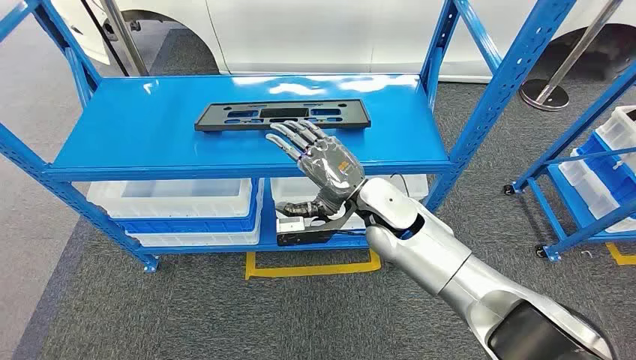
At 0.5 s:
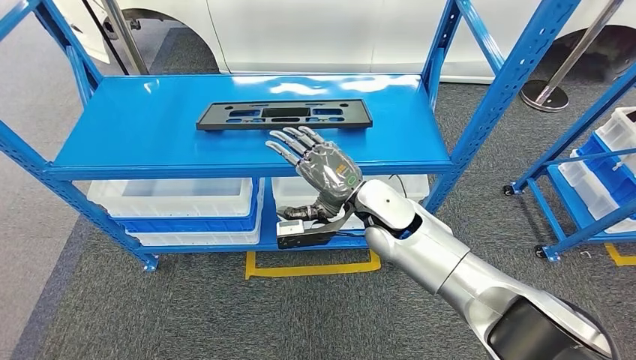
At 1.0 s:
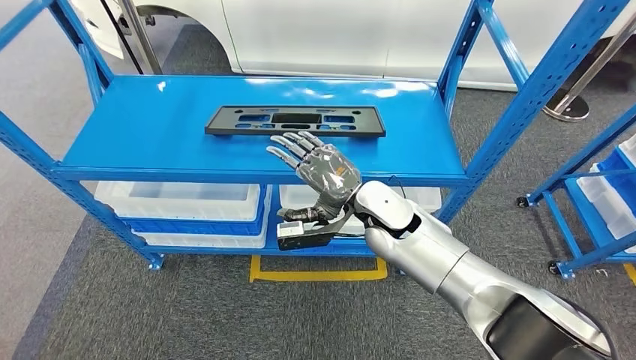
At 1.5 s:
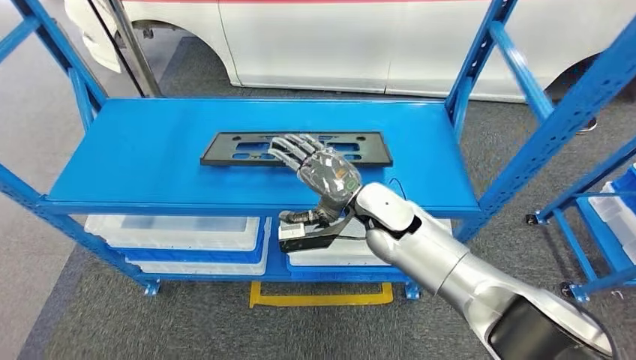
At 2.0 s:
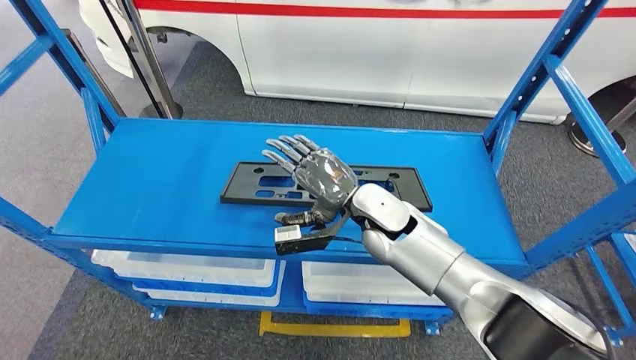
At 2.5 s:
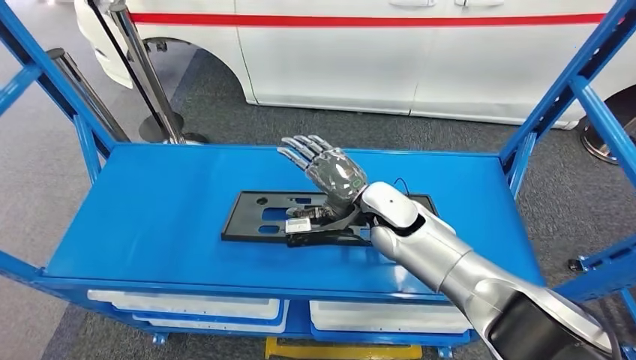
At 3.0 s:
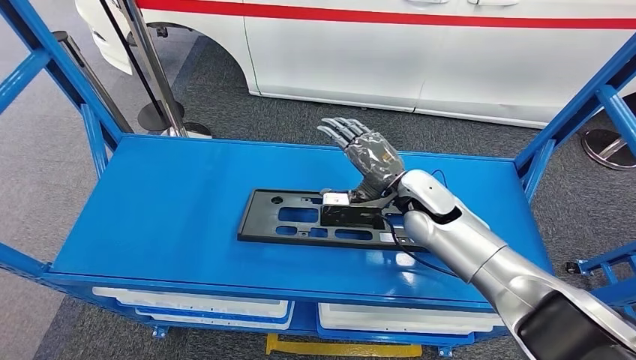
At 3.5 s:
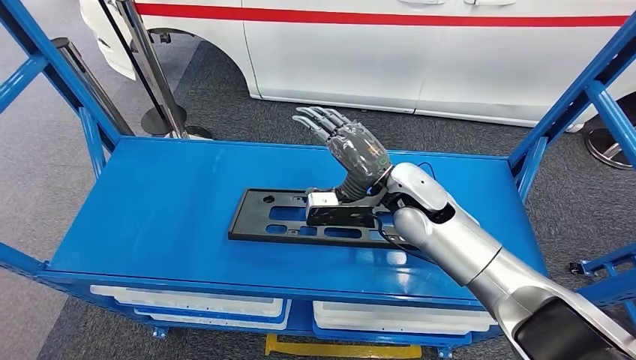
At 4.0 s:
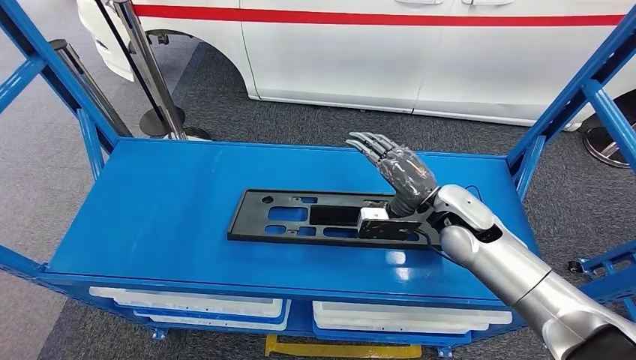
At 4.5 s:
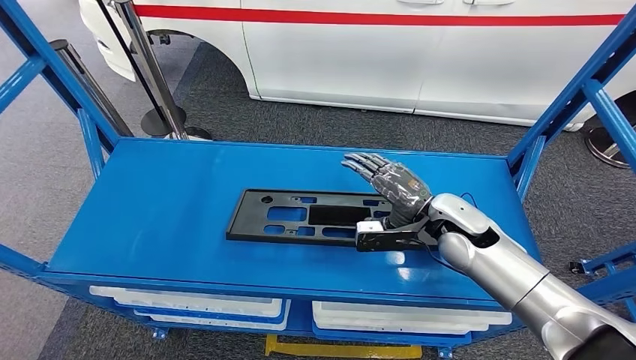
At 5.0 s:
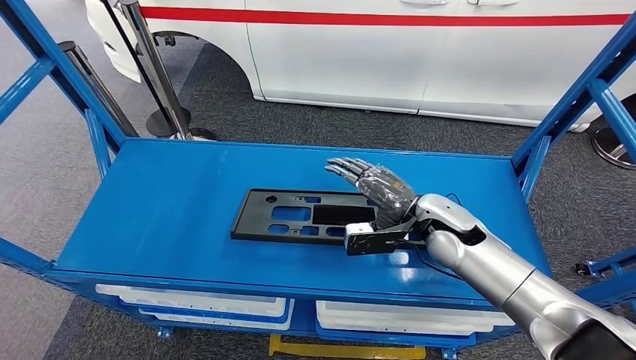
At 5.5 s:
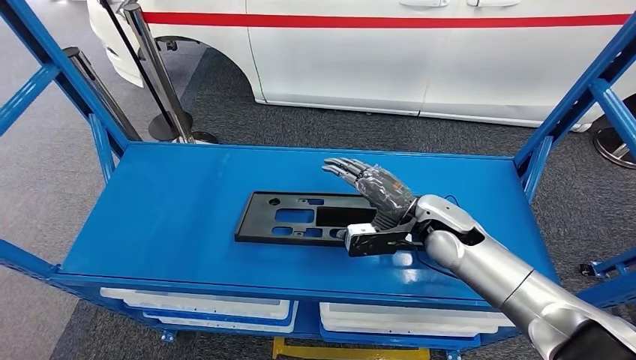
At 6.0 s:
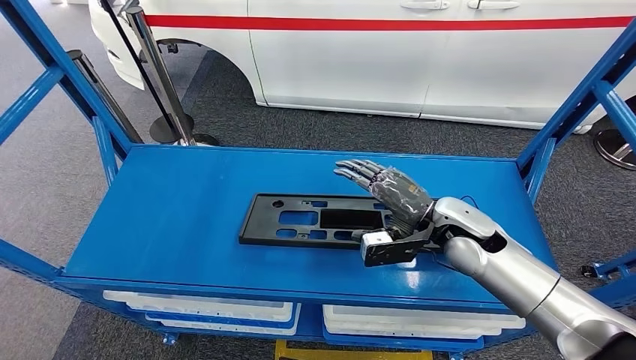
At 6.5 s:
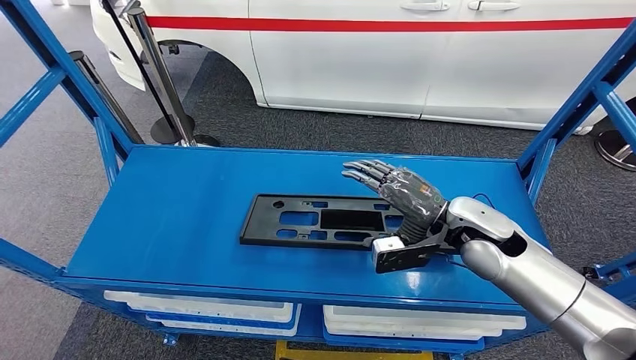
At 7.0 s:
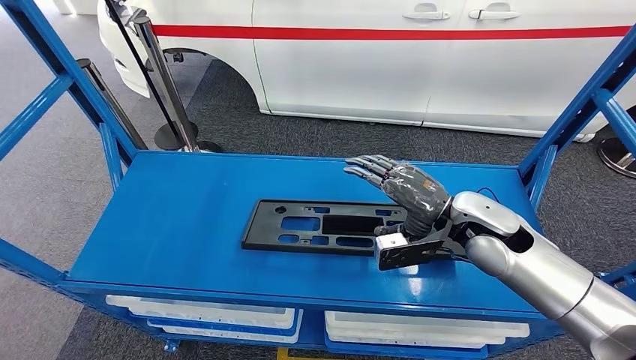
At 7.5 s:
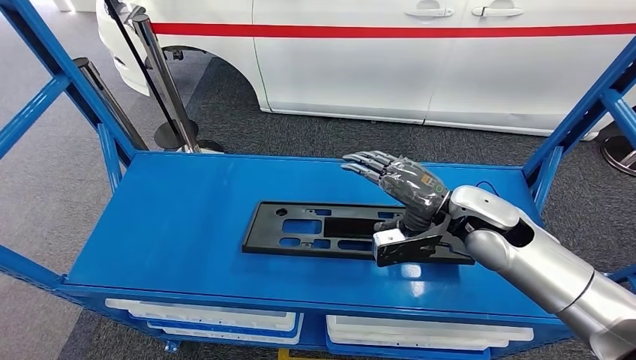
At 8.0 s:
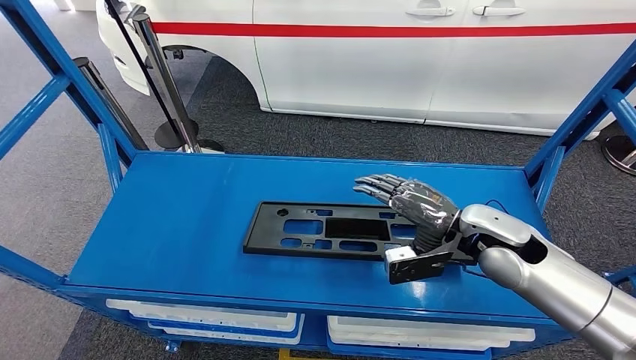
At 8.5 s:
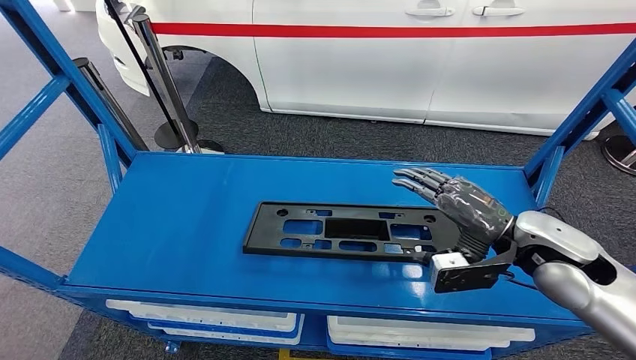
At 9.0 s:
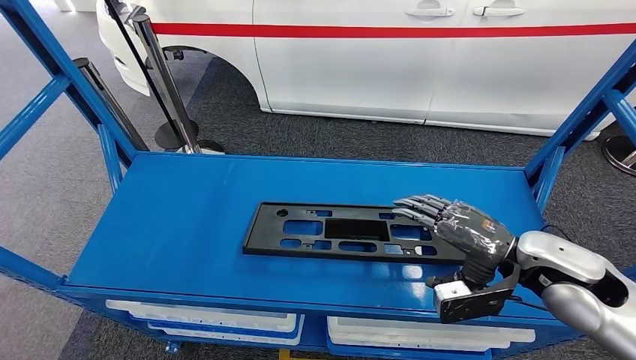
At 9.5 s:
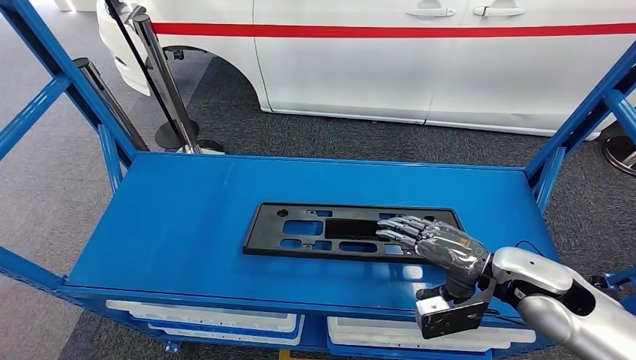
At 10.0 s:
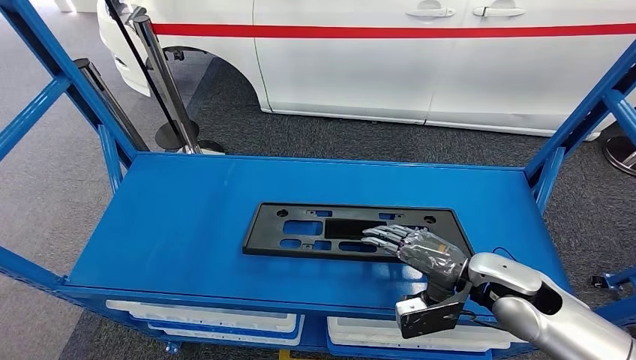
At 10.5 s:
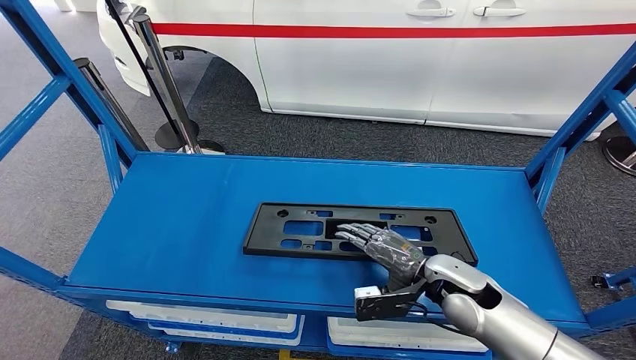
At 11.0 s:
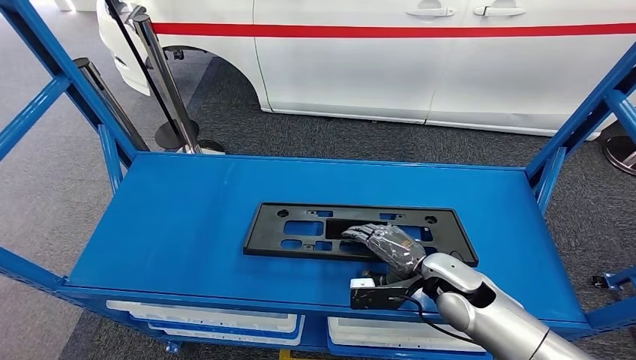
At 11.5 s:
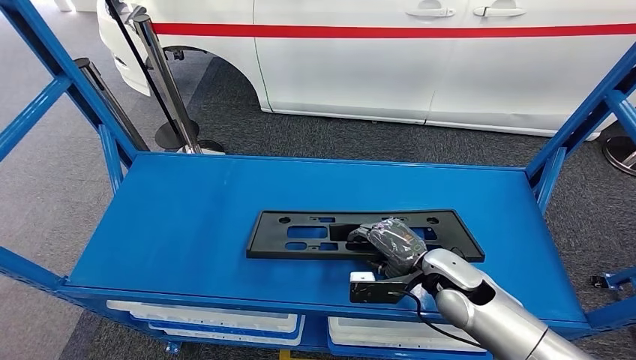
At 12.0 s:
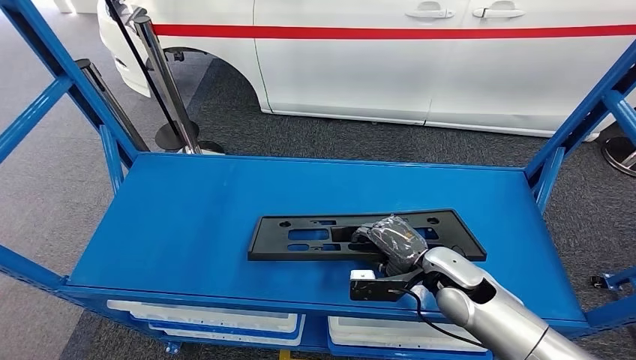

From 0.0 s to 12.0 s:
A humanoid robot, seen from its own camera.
Step, from 0.0 s to 8.5 s: Pick up the large material from the shelf.
From 8.0 s to 10.0 s: The right hand is displaced backward and downward by some 10 cm.
From 10.0 s to 12.0 s: The right hand goes some 5 cm downward.

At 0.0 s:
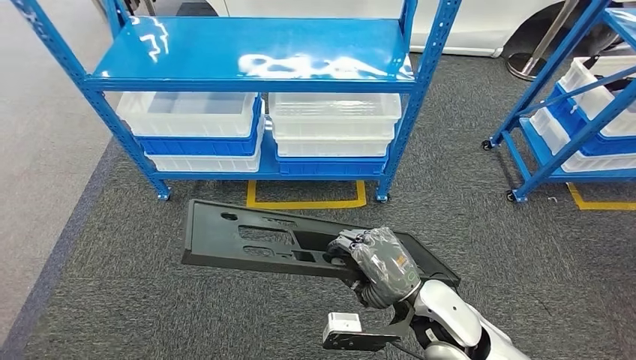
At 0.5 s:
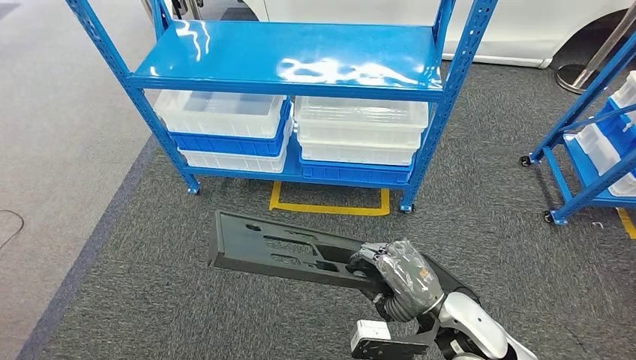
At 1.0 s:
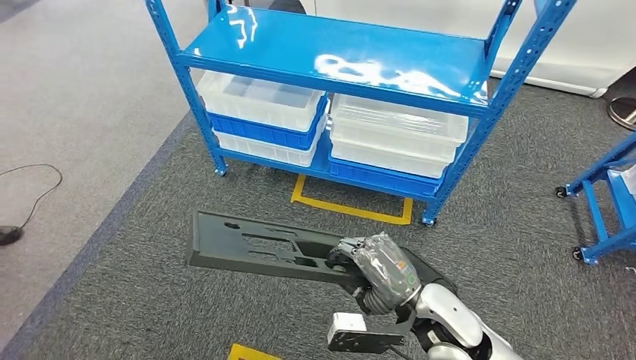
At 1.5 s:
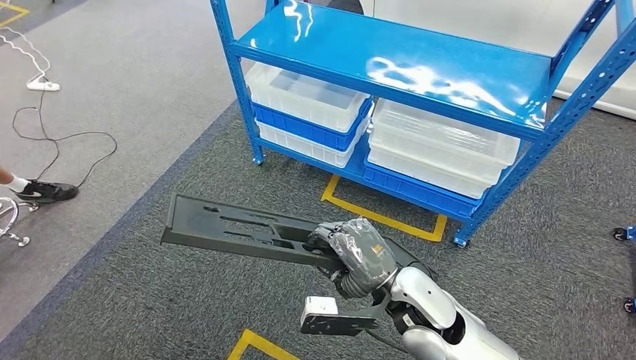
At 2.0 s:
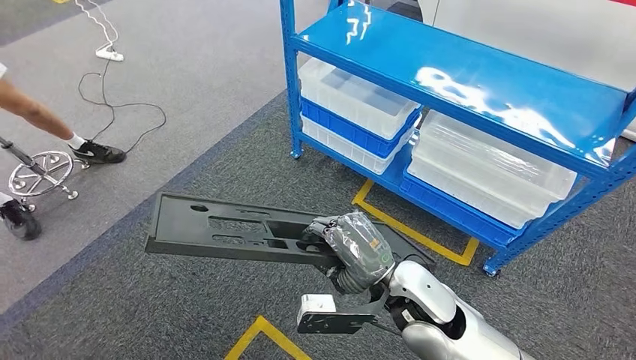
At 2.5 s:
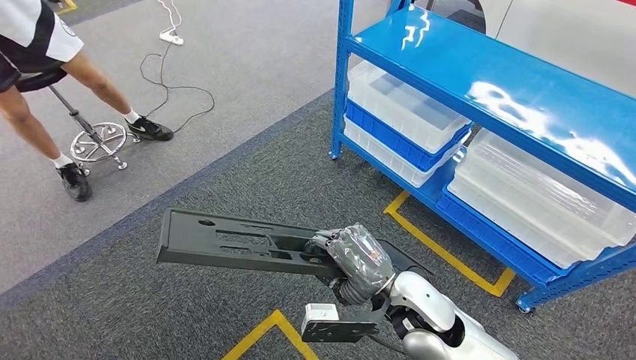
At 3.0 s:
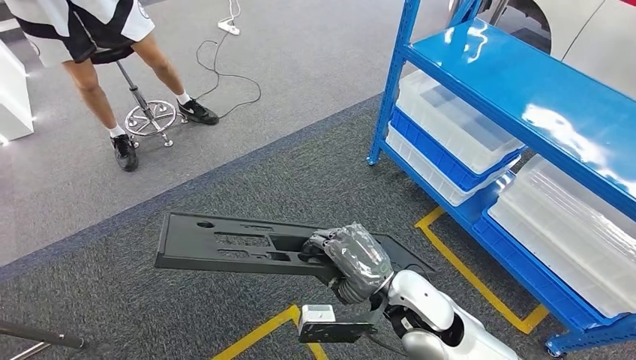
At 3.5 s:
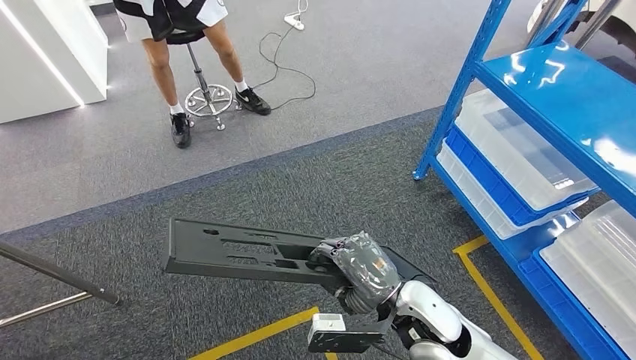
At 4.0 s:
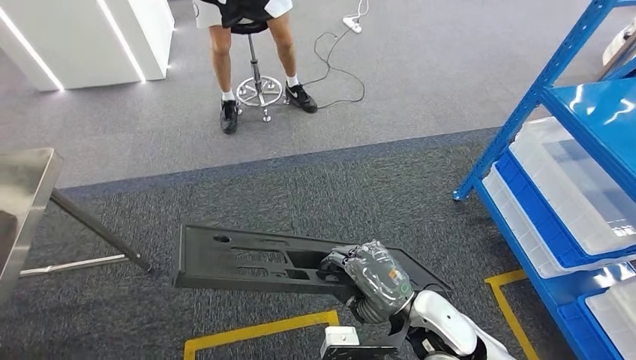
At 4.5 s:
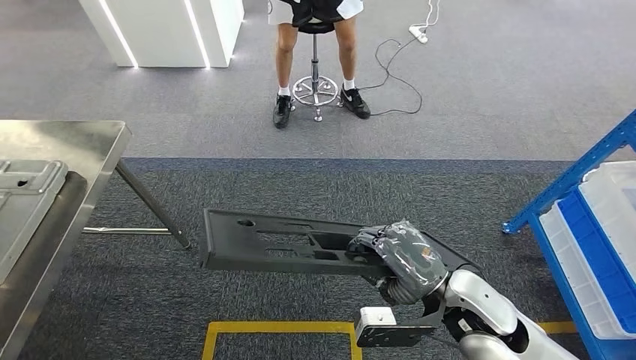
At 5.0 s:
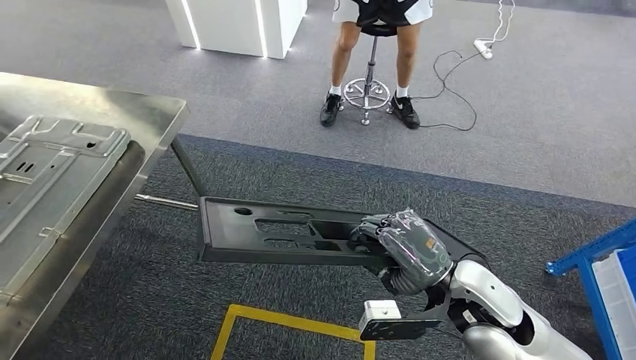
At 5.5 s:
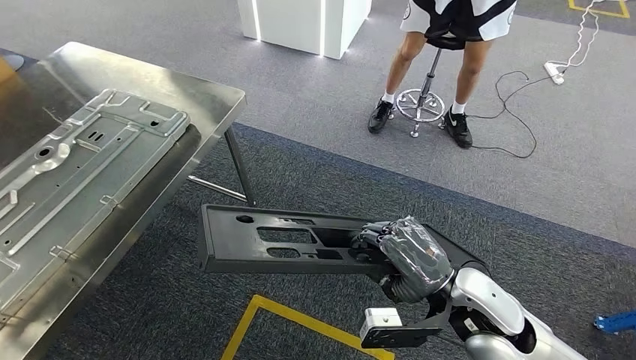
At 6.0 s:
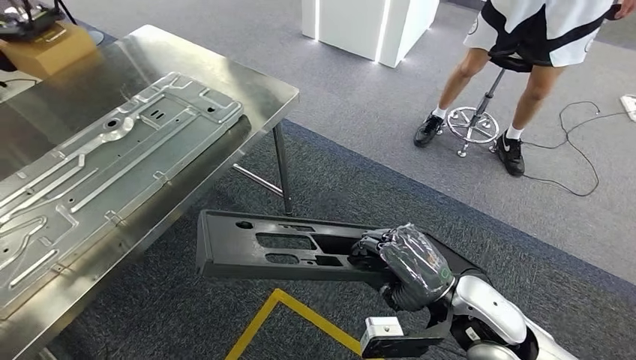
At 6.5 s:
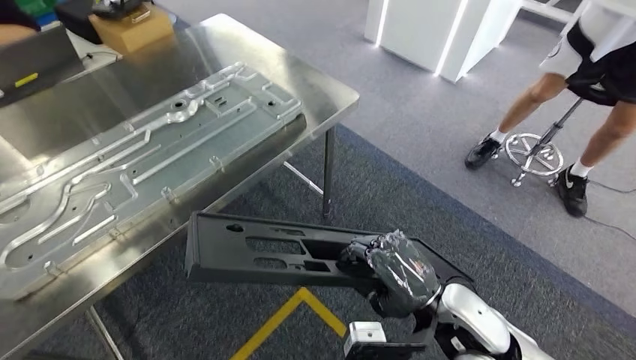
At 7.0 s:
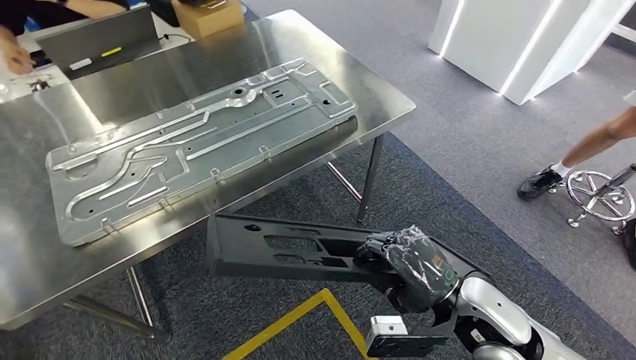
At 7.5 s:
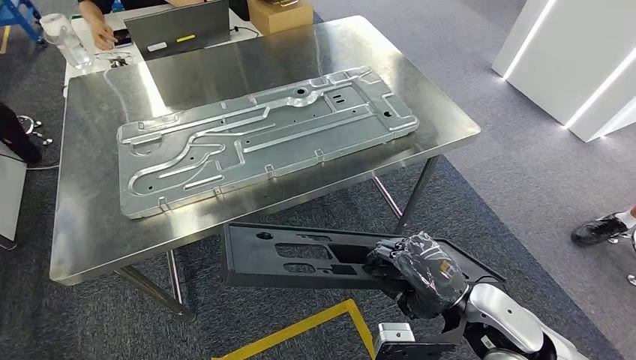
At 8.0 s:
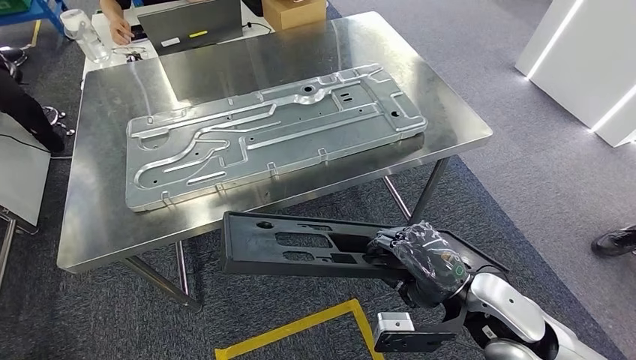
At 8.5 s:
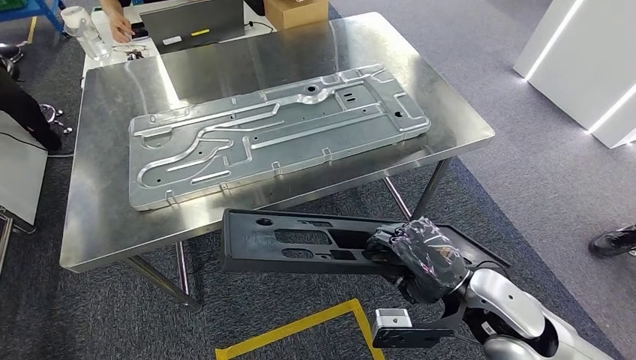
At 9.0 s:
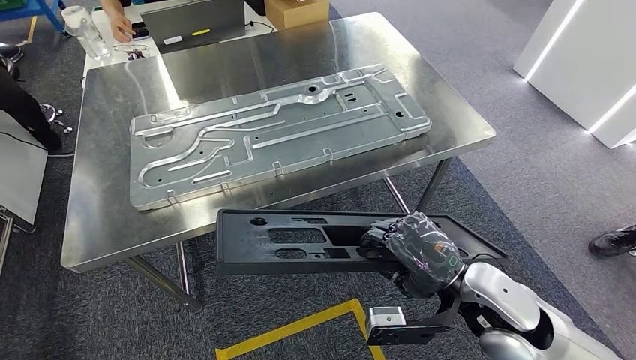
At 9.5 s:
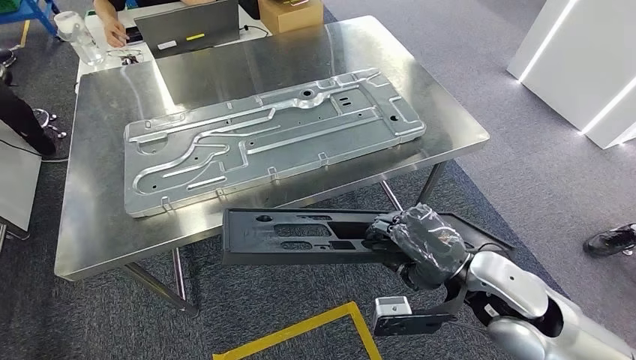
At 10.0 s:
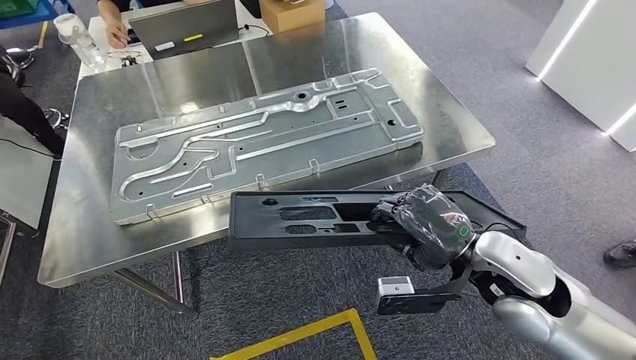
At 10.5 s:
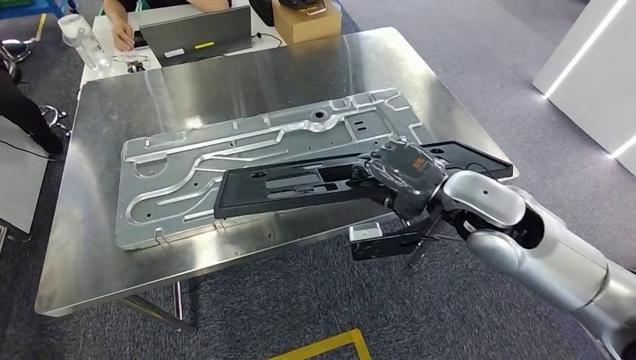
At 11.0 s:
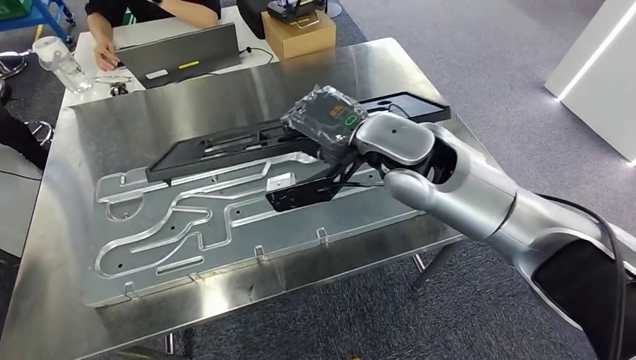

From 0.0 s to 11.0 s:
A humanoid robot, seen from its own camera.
Step, from 0.0 s to 9.5 s: Move the large material to the workbench.
